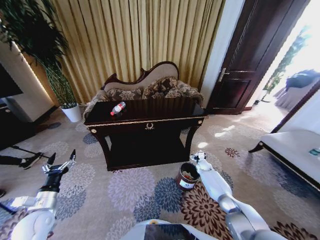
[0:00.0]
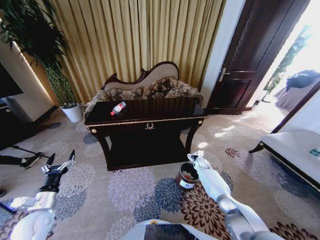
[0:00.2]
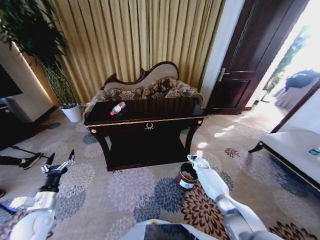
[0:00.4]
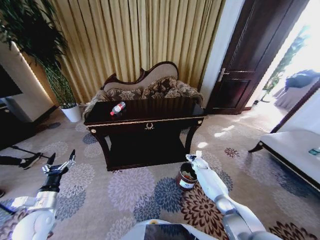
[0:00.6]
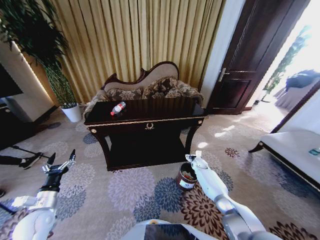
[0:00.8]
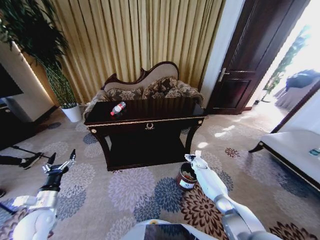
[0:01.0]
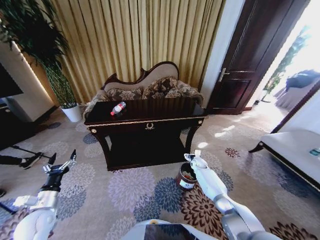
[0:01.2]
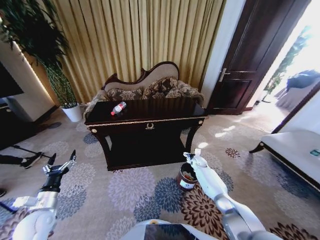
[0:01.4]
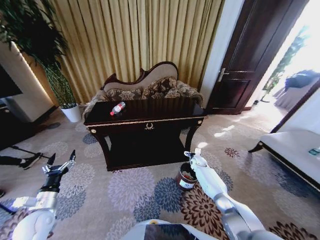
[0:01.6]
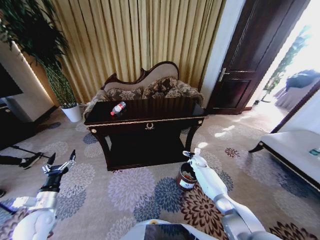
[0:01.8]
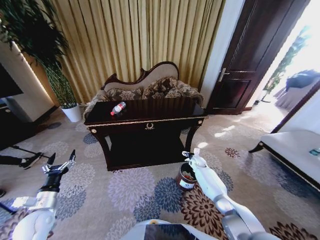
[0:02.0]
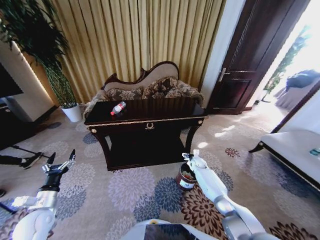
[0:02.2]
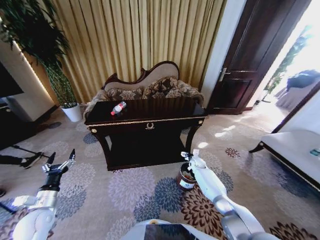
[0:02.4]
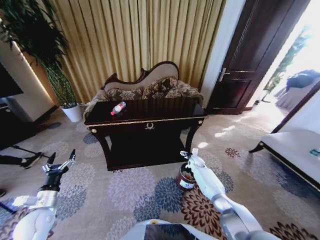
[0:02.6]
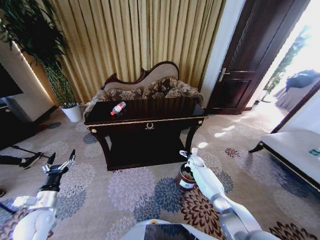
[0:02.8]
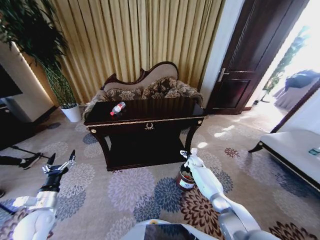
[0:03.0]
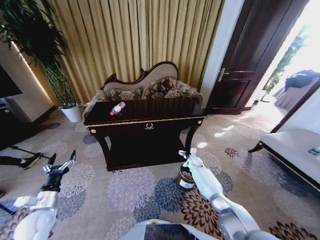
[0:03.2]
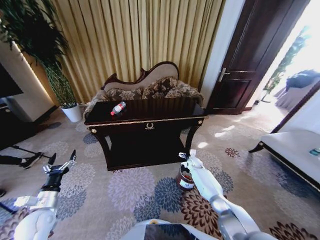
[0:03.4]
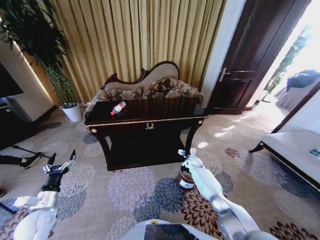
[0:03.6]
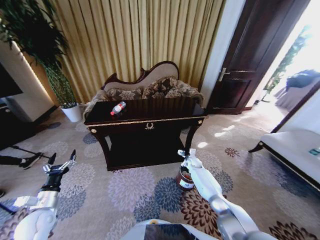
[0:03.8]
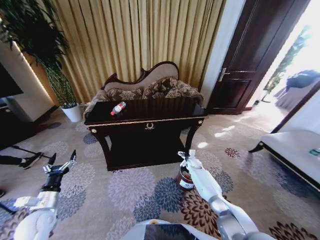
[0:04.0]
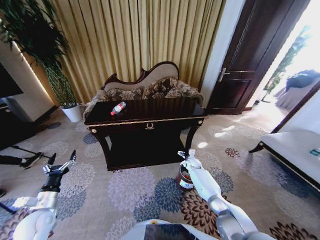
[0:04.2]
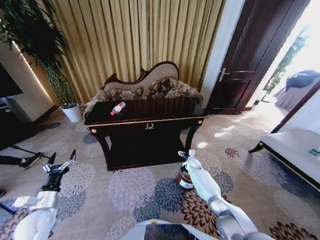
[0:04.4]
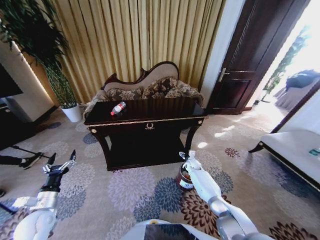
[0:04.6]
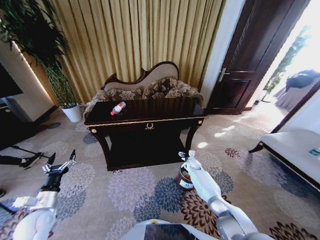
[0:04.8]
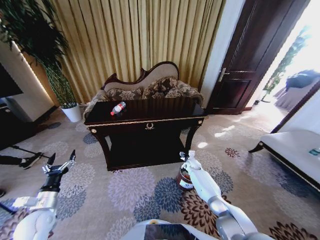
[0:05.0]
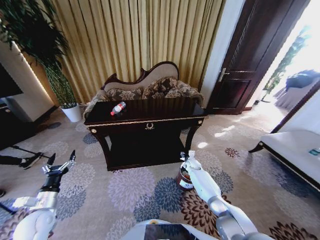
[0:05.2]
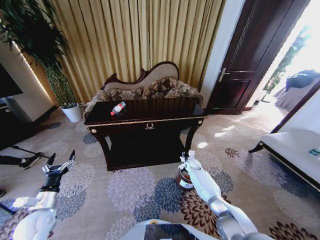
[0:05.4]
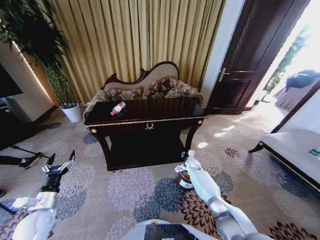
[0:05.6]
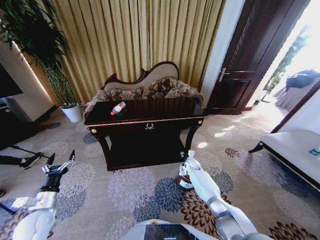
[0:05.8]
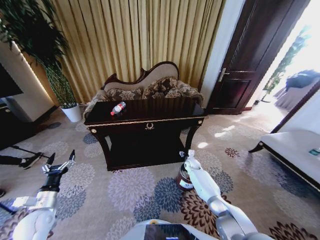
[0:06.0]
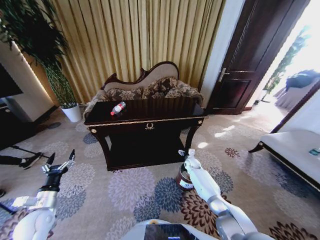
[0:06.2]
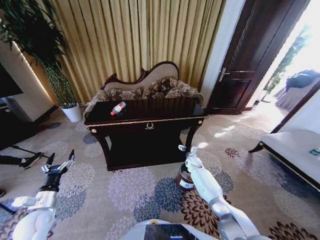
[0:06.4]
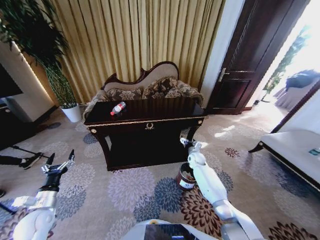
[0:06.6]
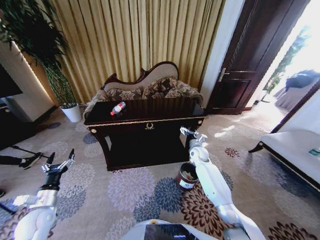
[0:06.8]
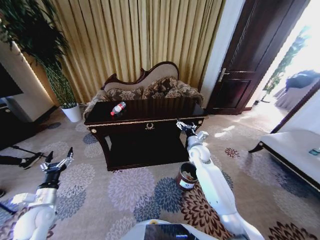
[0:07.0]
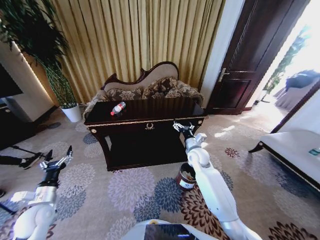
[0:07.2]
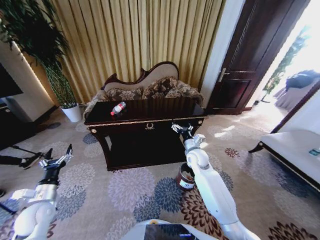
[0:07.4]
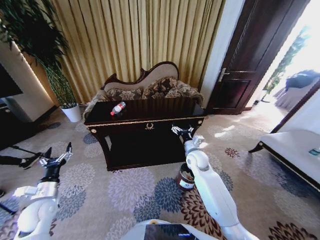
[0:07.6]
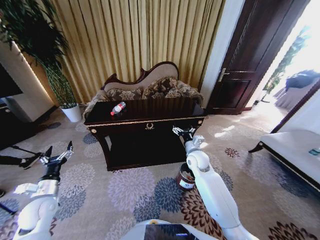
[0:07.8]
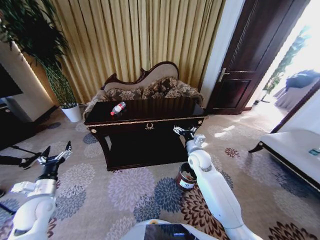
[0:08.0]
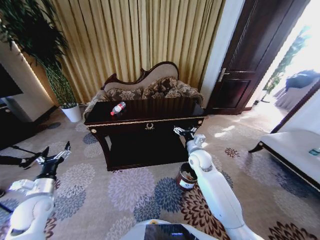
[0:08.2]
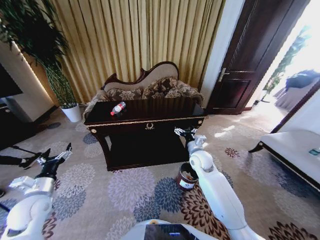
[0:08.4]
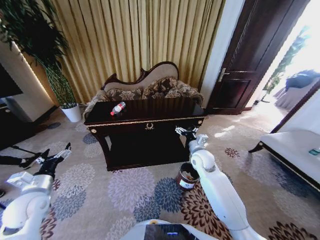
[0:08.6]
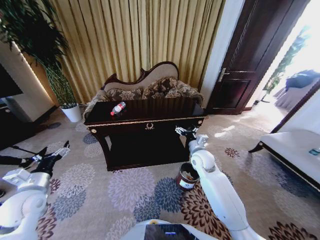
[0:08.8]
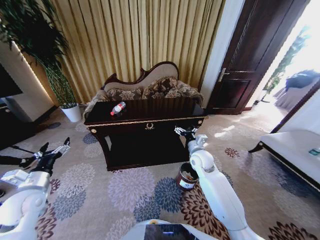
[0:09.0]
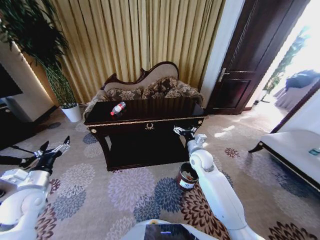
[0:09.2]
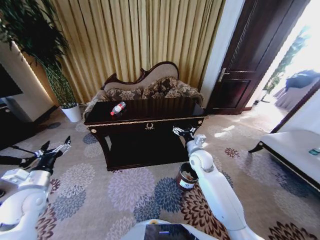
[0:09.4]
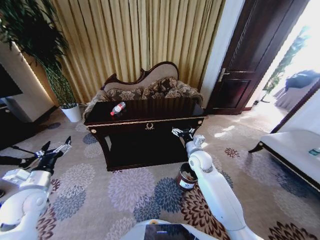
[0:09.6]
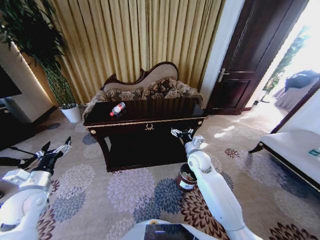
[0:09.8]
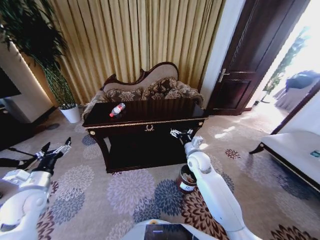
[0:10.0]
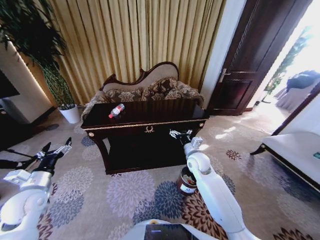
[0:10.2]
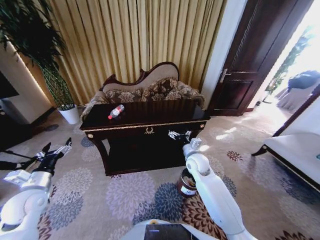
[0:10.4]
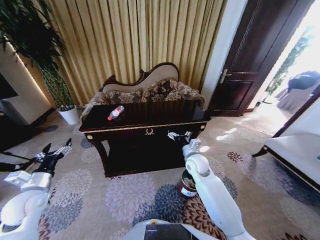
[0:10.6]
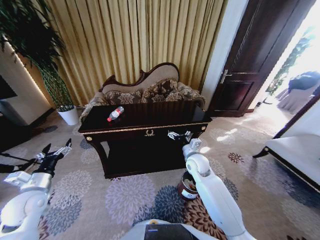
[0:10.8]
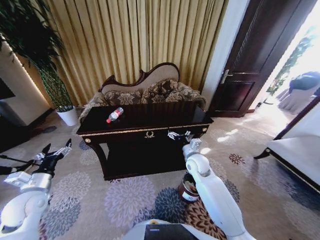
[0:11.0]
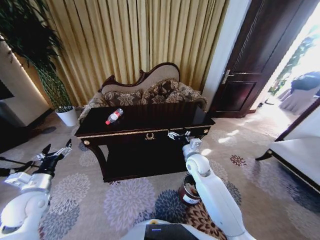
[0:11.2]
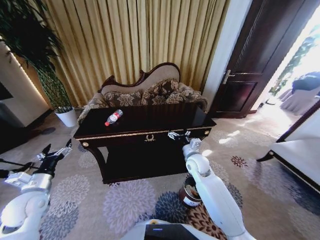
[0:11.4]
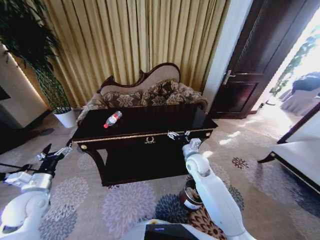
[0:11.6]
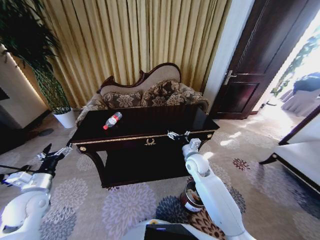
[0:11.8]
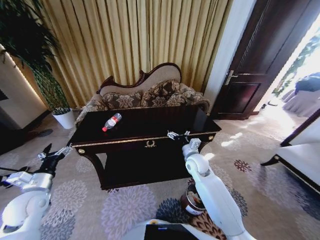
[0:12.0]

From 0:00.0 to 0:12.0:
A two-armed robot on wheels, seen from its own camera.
Task of the whole recording: Move to the front of the table and place the trash on the table into the trash bin.
From 0:00.0 to 0:01.6: The right gripper changes place by some 5 cm.
From 0:01.6 to 0:04.4: The grippers make only small movements.
From 0:06.0 to 0:07.6: The right gripper moves upward, roughly 20 cm, and opens its fingers.
From 0:07.6 to 0:09.0: The left gripper travels upward by approximately 5 cm.

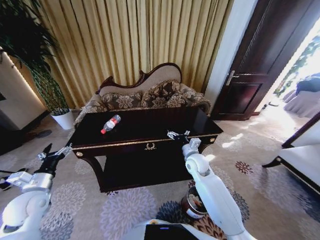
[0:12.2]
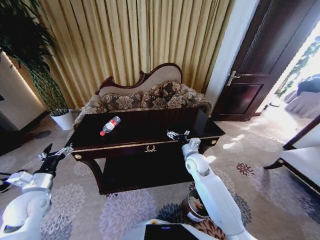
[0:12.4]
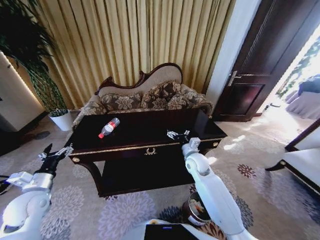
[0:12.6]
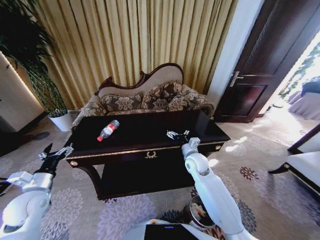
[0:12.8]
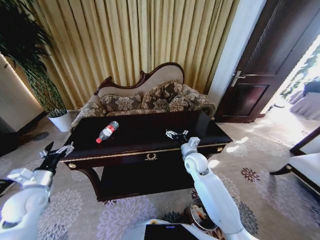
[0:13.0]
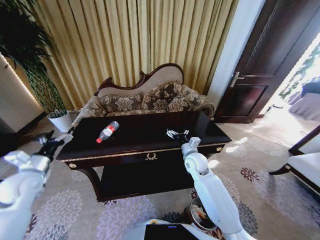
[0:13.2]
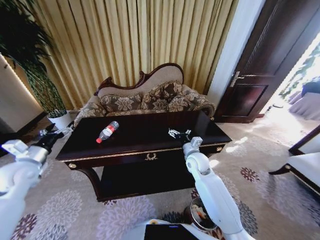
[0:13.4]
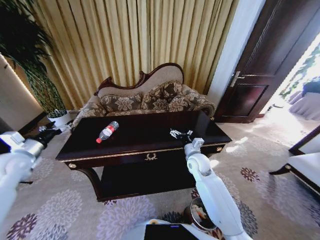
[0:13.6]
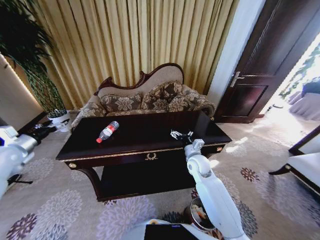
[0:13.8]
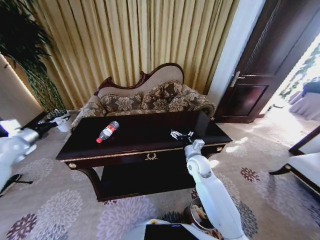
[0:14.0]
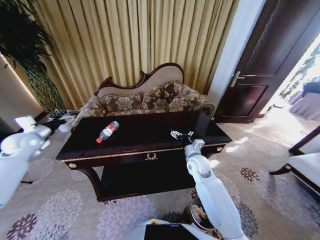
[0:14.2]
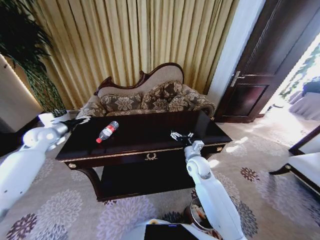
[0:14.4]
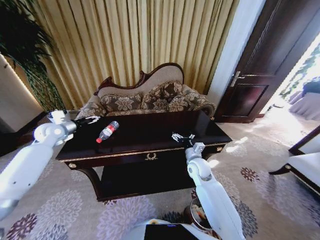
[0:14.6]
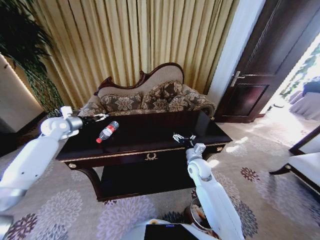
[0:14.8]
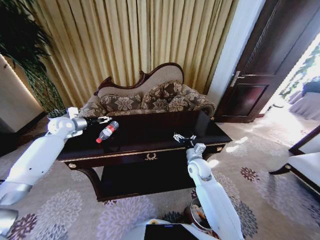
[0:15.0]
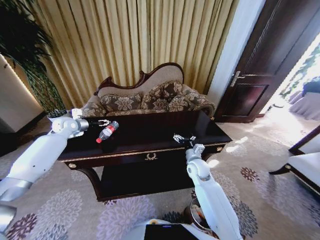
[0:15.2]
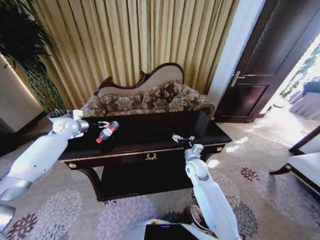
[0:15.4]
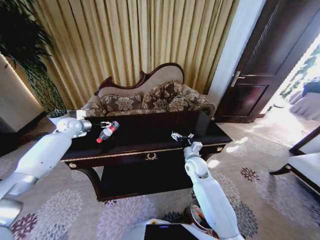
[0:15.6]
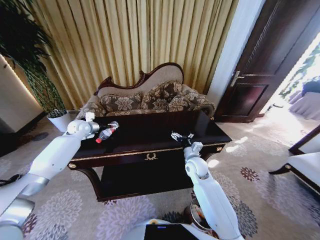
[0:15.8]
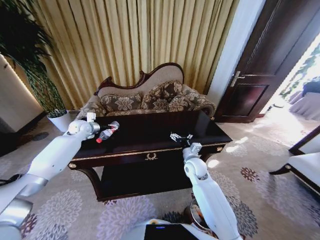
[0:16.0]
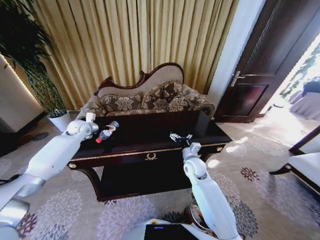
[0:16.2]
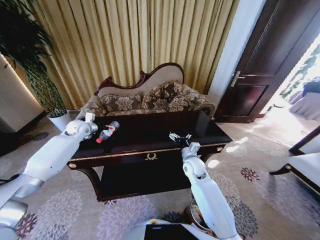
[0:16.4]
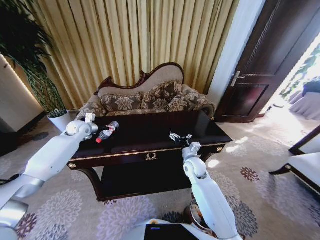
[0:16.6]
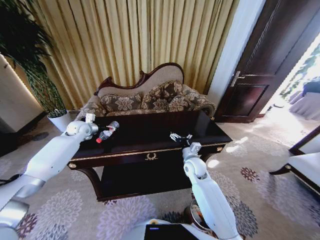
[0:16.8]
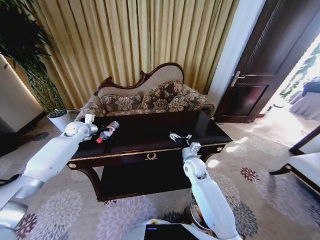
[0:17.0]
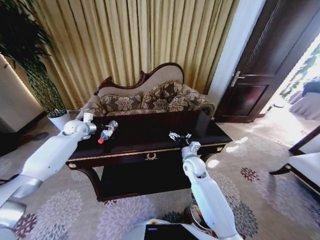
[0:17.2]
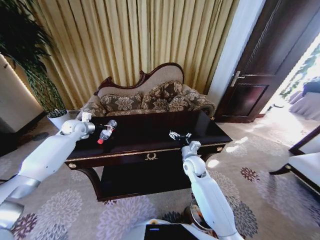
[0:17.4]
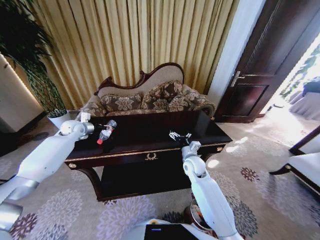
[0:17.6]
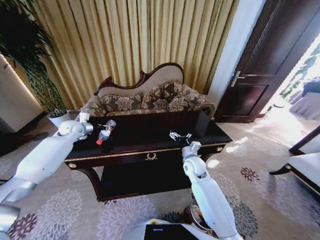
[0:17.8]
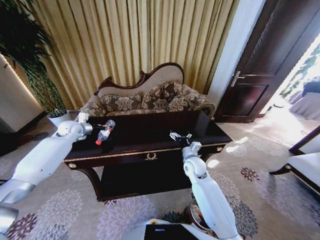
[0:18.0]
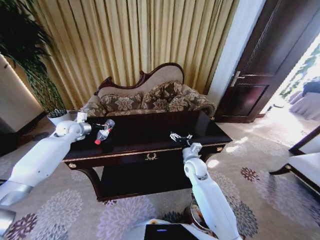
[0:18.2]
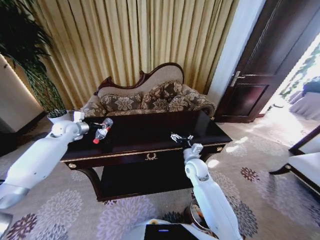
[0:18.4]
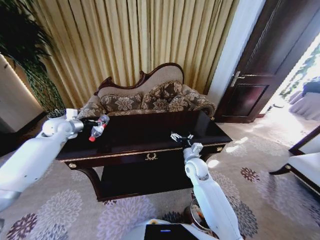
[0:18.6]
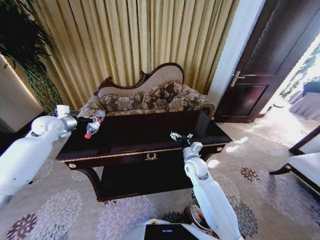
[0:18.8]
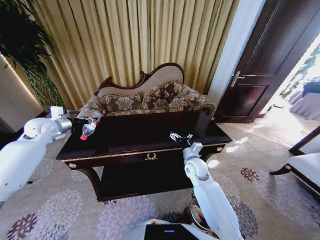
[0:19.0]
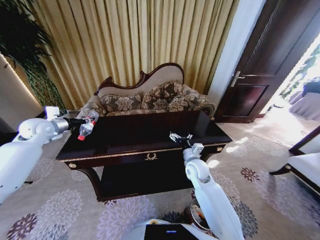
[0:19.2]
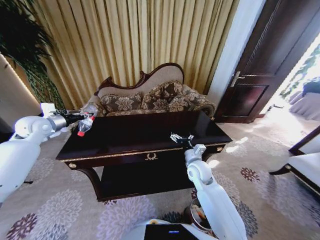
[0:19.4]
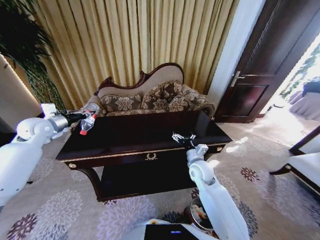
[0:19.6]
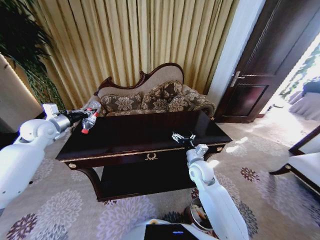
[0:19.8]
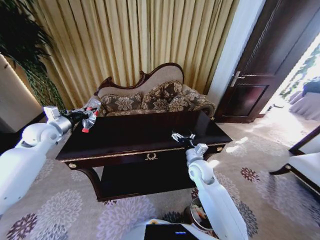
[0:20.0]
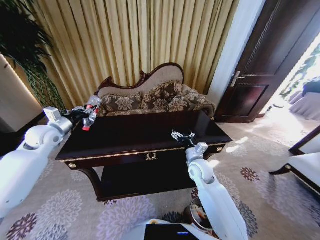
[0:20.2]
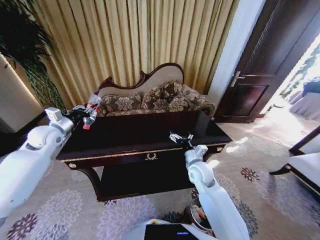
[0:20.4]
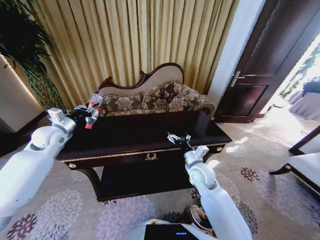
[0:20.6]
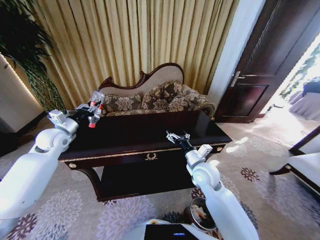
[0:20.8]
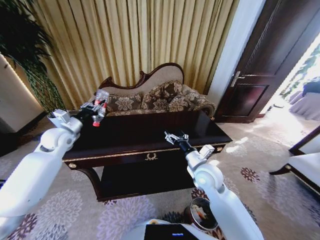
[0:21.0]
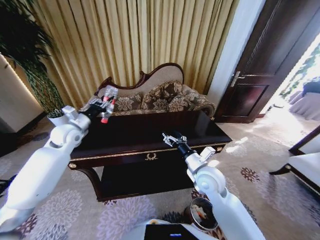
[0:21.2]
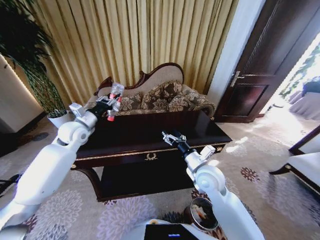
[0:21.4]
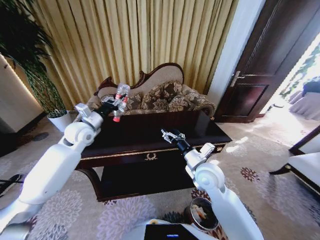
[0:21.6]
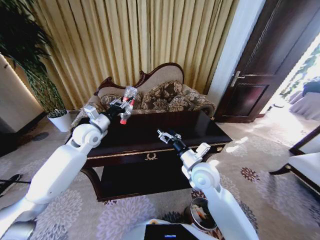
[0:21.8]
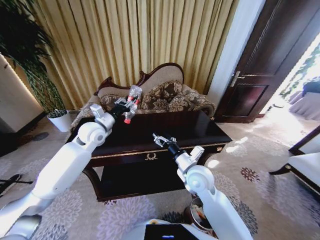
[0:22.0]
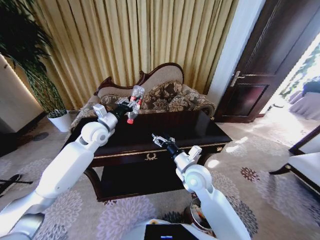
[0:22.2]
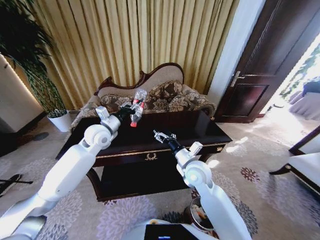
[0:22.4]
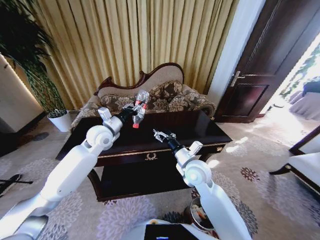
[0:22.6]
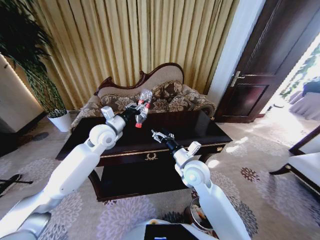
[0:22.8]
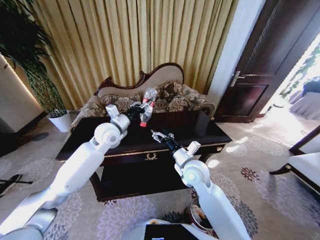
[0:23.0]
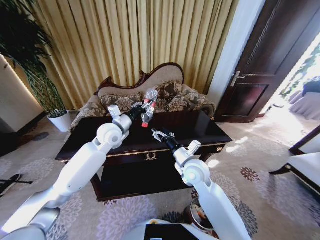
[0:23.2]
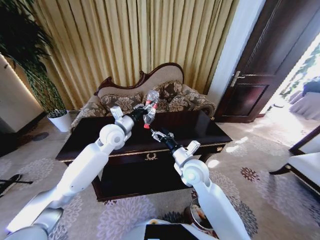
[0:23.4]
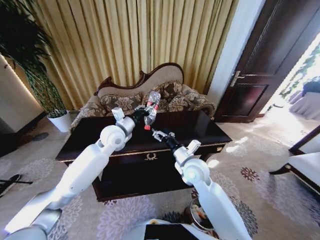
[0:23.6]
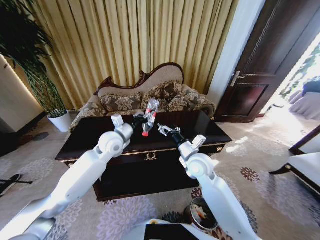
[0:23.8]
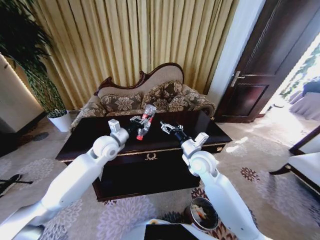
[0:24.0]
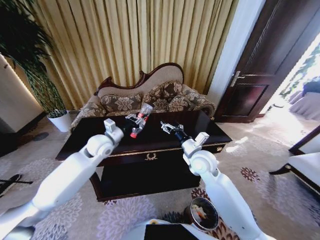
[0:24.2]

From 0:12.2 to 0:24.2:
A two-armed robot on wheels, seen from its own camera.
Task of the whole recording: Move to the front of the table and place the trash on the table into the trash bin.
From 0:12.2 to 0:13.8: The left gripper goes some 20 cm forward, to the left and upward.
From 0:13.8 to 0:15.2: The left gripper heads forward and to the right, covering some 20 cm.
From 0:15.2 to 0:16.6: The left gripper shifts by about 5 cm.
From 0:16.6 to 0:18.2: The left gripper closes up.
From 0:18.2 to 0:19.8: The left gripper travels backward and upward by roughly 10 cm.
From 0:19.8 to 0:21.2: The right gripper shifts some 10 cm backward and upward. The left gripper heads to the right, covering roughly 10 cm.
From 0:21.2 to 0:22.6: The left gripper travels to the right by roughly 15 cm.
From 0:22.6 to 0:24.2: The grippers make only small movements.
